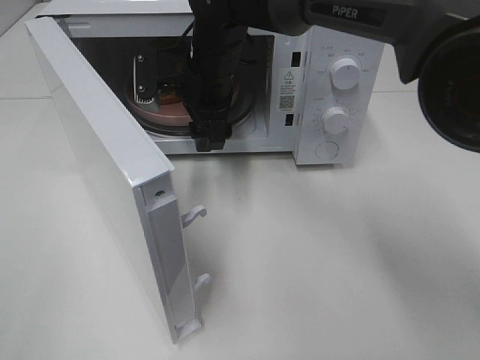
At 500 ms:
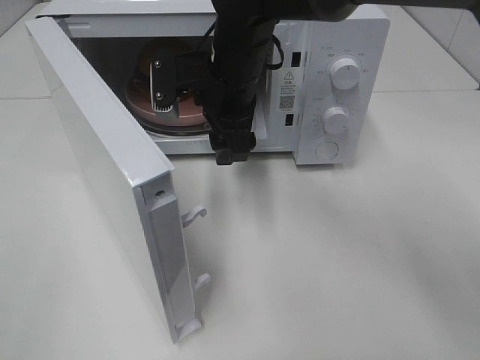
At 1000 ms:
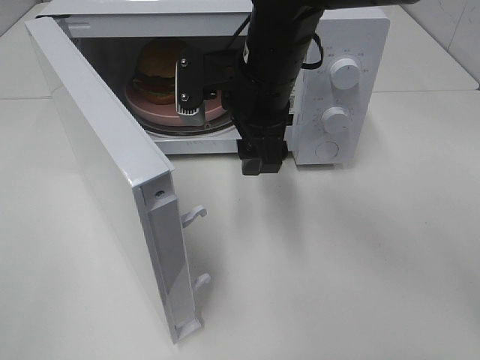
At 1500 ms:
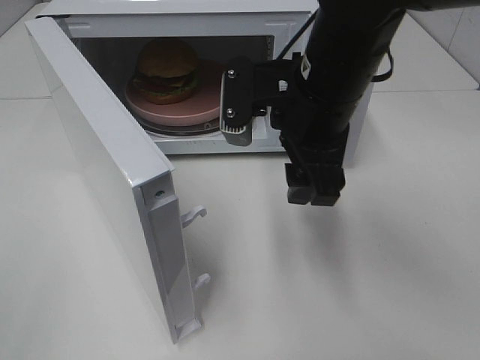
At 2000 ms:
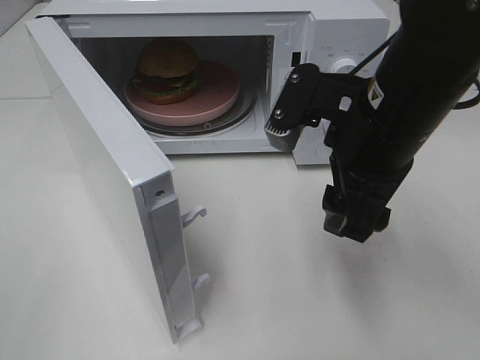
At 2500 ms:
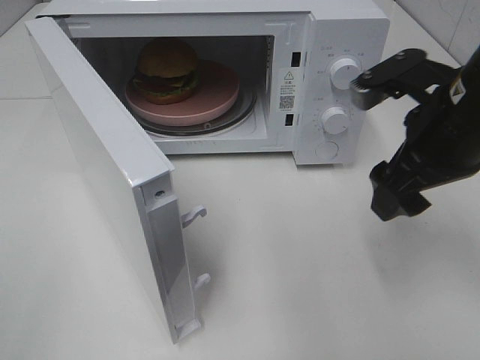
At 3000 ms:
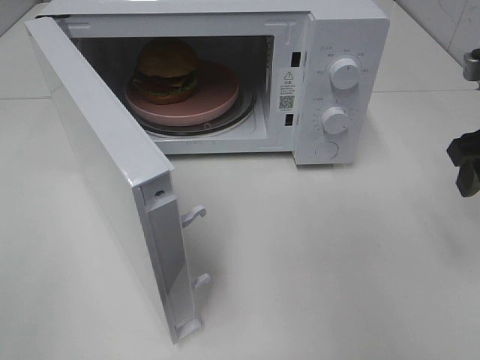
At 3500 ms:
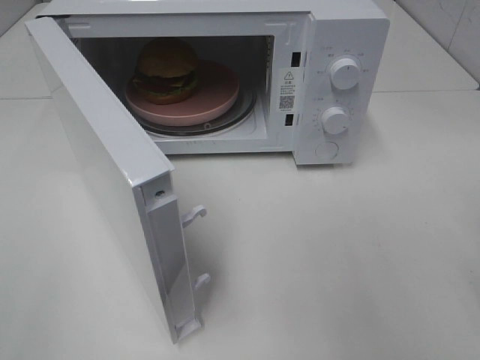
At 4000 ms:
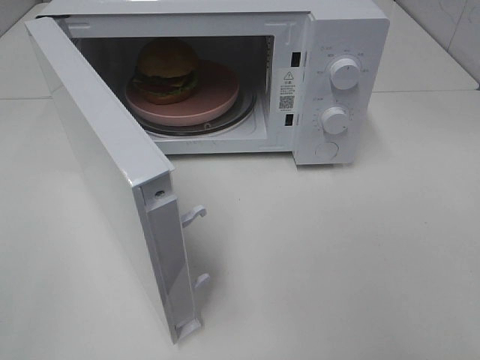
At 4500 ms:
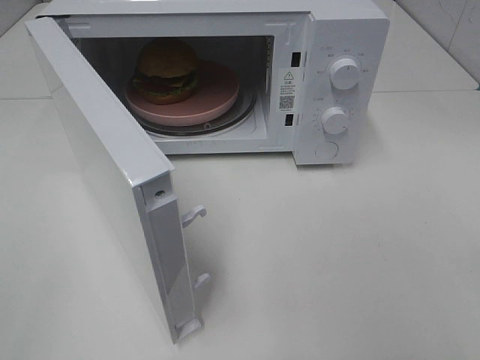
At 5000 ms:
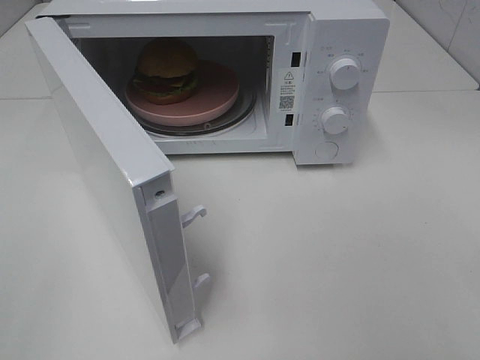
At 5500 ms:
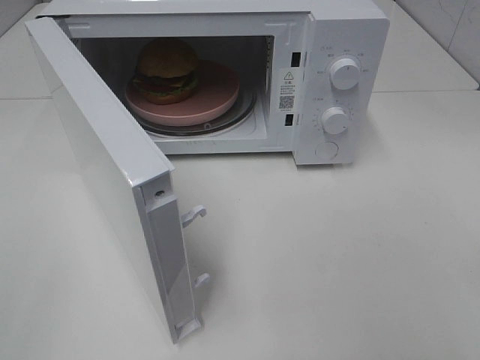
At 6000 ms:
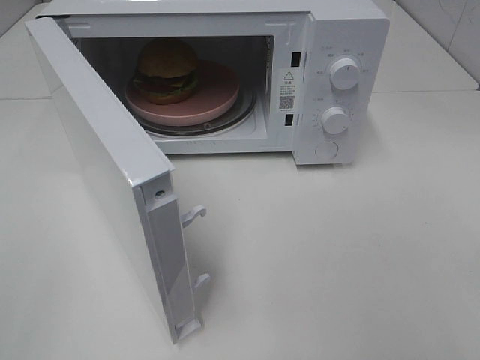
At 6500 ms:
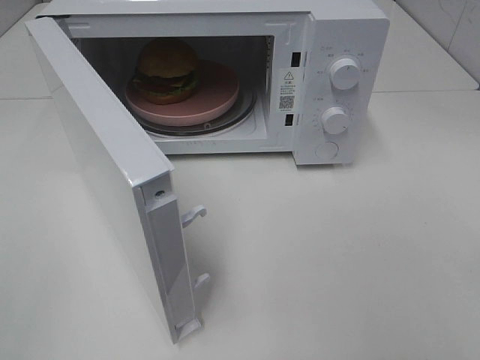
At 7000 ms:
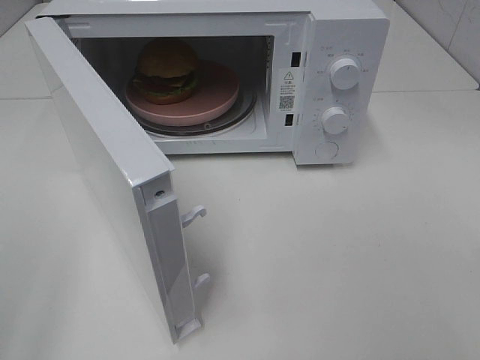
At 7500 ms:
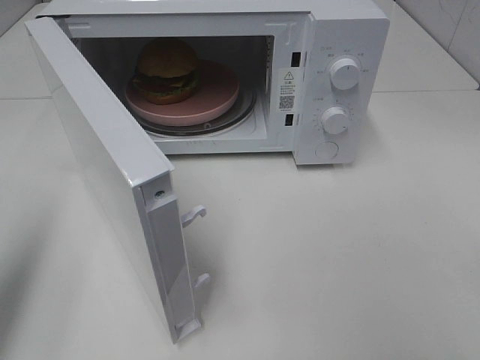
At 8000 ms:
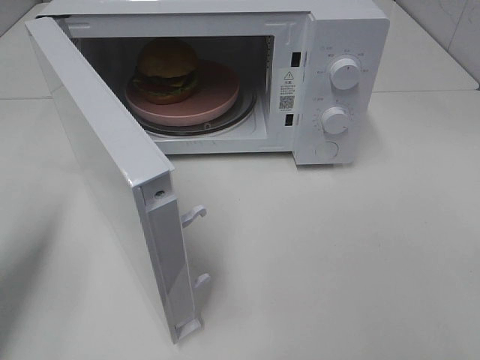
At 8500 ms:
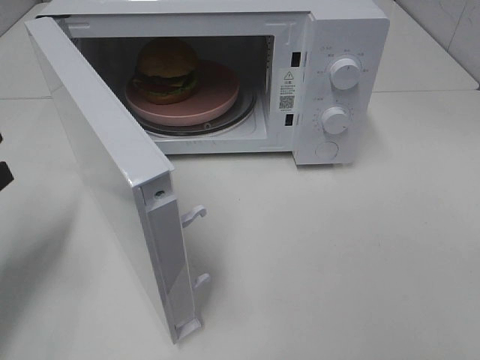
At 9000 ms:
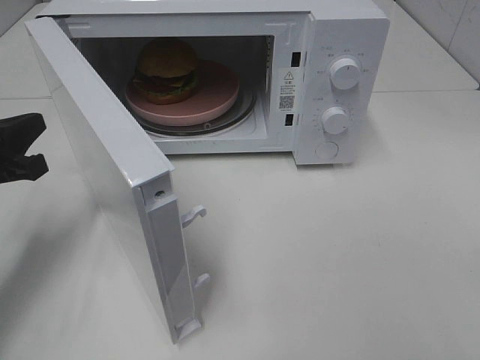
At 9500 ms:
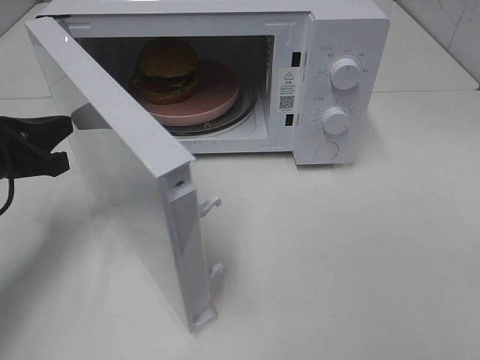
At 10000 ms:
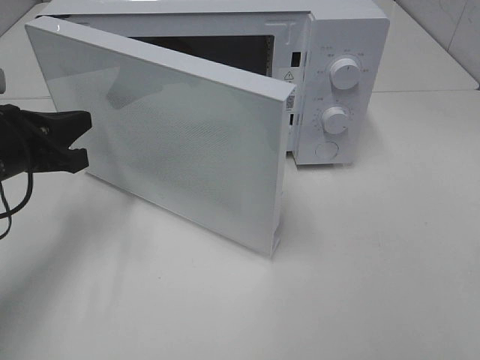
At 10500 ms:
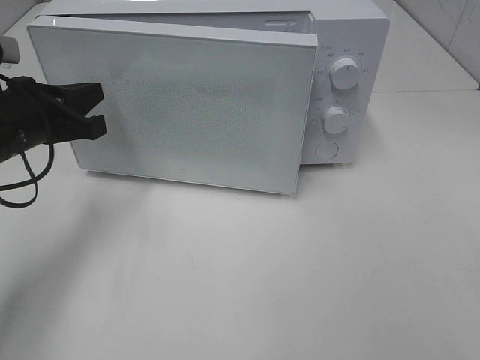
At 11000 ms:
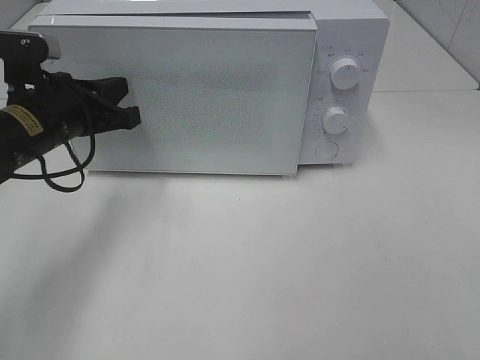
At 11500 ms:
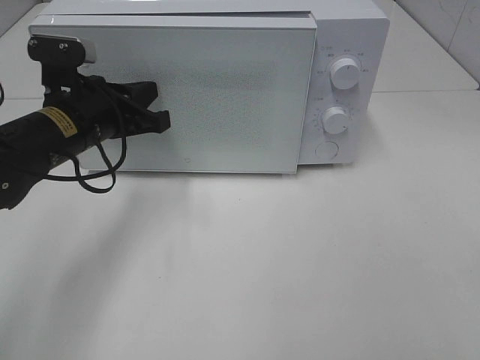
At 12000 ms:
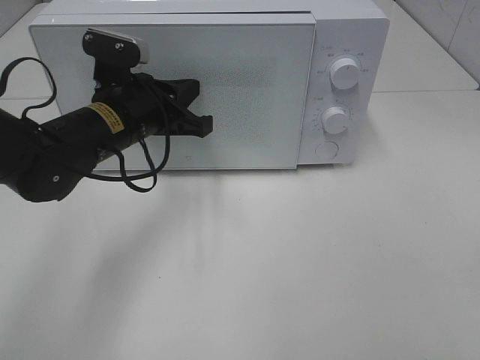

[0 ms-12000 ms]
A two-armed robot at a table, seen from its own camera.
Task of the whole recording: Heat the burger.
0 ms to 2000 ms: The right gripper shifts approximately 25 cm backward and to the right.
2000 ms to 4000 ms: The right gripper moves to the right and backward, about 25 cm.
6000 ms to 8000 ms: The left gripper travels forward by some 20 cm, and closes its fingers.
8000 ms to 10000 ms: The left gripper goes some 15 cm forward, to the right and downward.
10000 ms to 12000 ms: The left gripper heads to the right and forward, covering some 15 cm.

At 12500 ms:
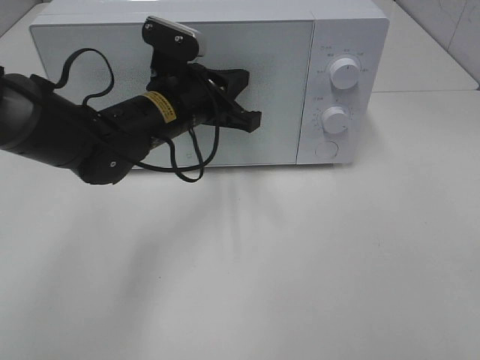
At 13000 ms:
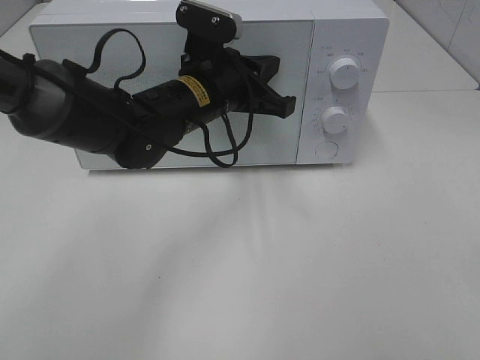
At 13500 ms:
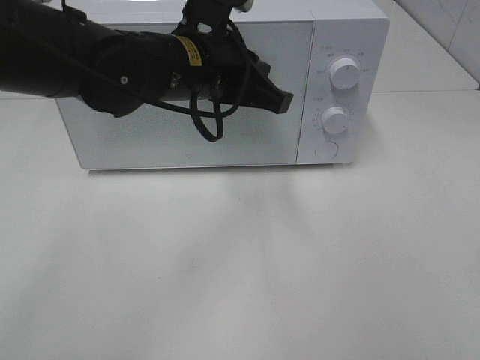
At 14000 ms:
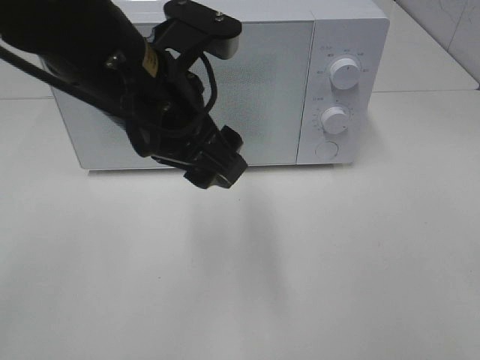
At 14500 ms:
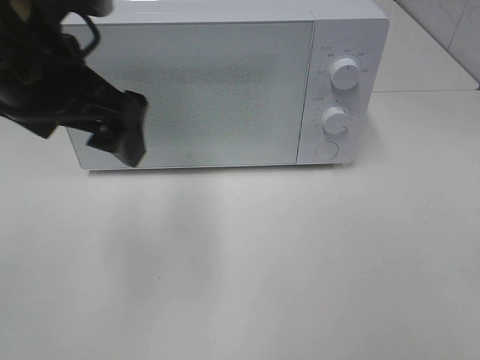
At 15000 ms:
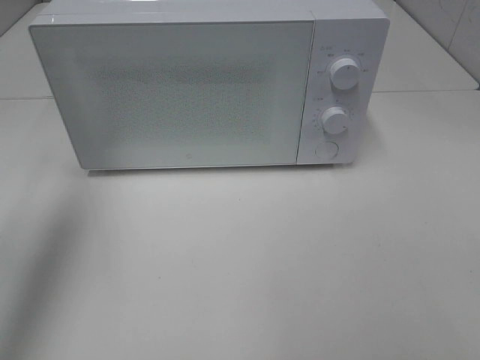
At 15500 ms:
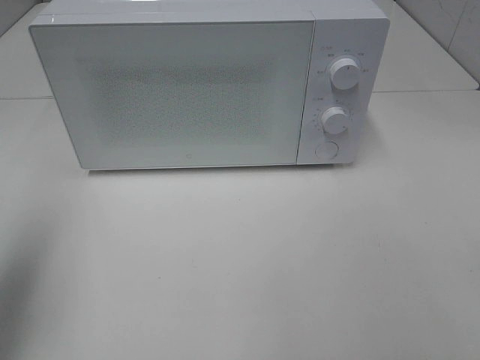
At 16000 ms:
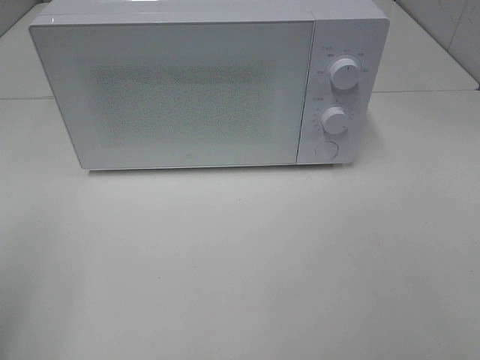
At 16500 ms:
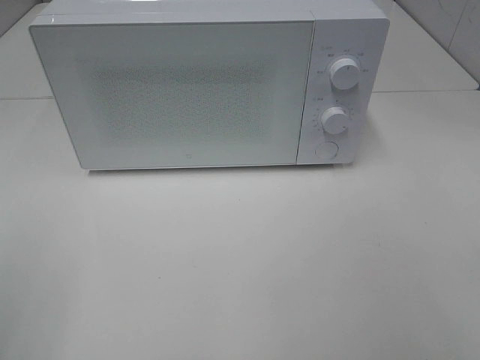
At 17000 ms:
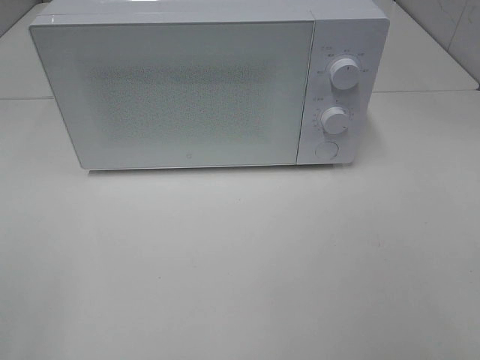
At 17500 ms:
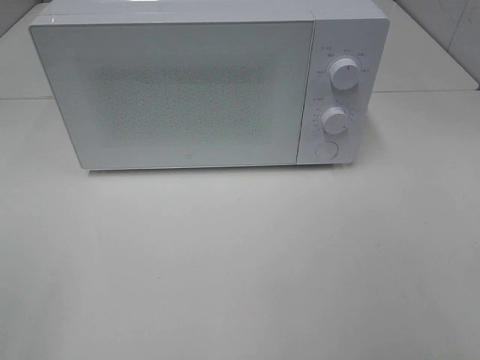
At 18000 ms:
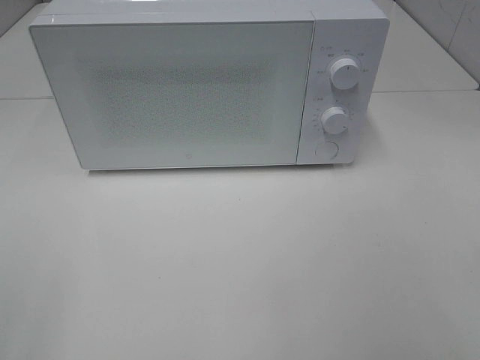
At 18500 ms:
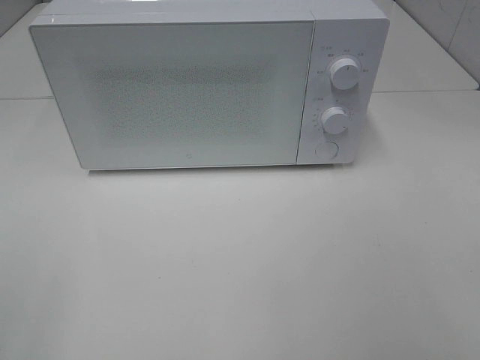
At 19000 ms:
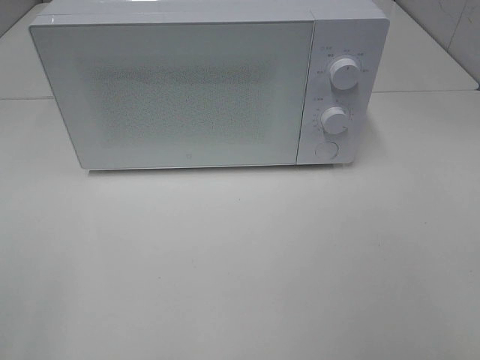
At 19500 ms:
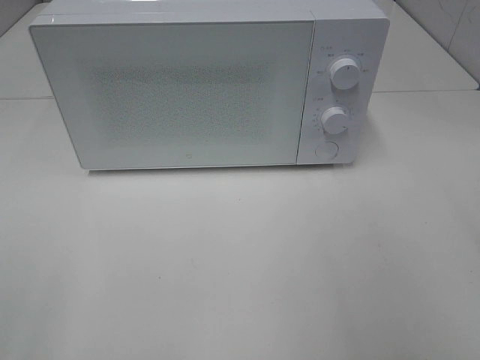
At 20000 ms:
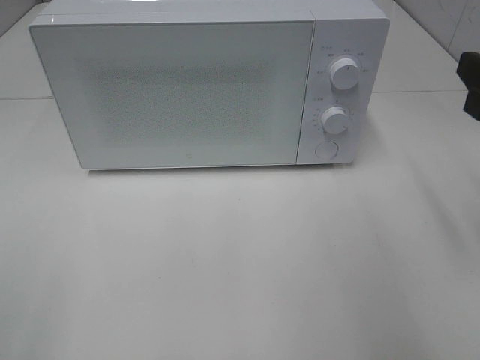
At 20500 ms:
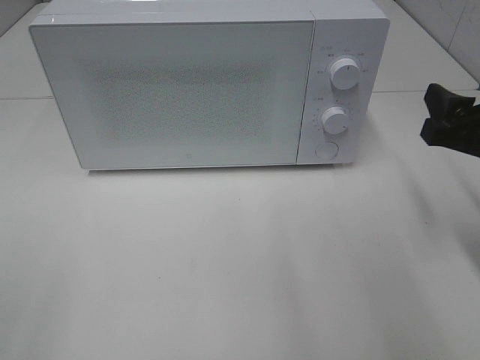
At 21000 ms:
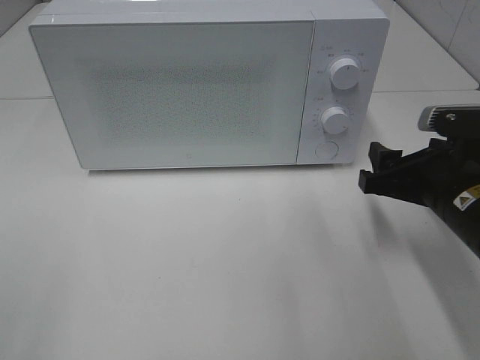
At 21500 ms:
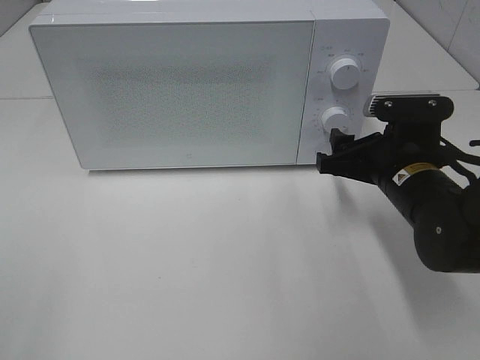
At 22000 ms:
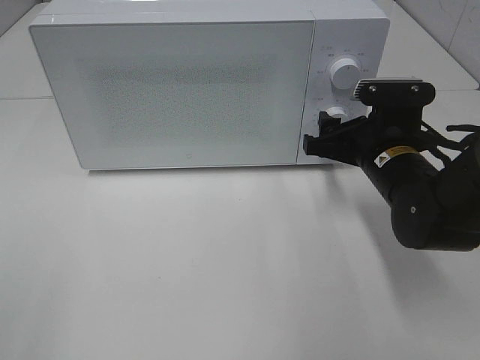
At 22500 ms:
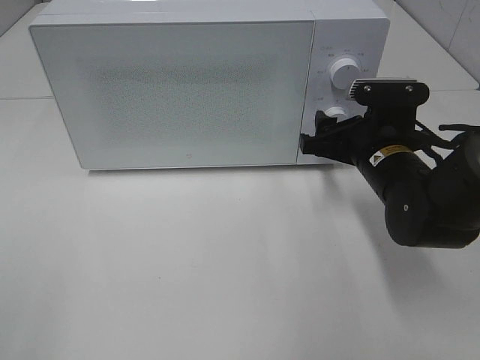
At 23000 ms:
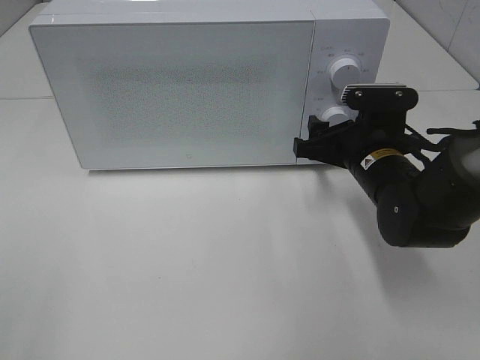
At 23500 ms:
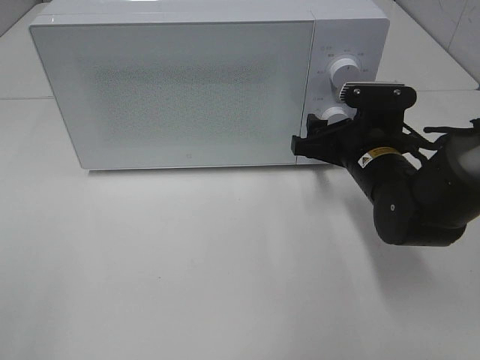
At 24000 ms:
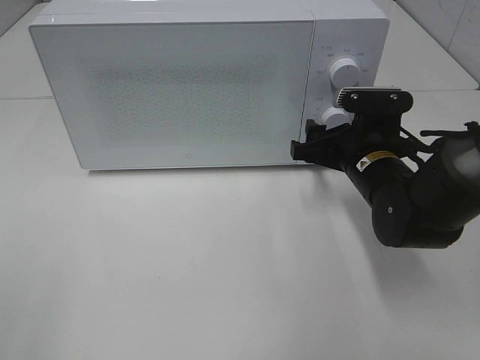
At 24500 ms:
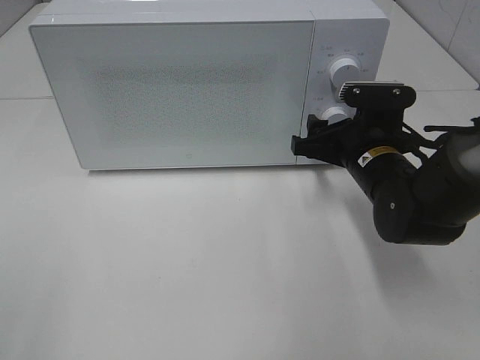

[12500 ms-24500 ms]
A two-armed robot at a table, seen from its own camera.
Task of the whole recording: Heat the burger.
12500 ms to 14500 ms: The left gripper shifts approximately 20 cm upward, backward and to the left, and opens its fingers.
14500 ms to 16500 ms: The left gripper goes roughly 25 cm backward and to the left.
18500 ms to 20500 ms: The right gripper shifts some 25 cm forward and downward.
20500 ms to 22500 ms: The right gripper goes some 15 cm to the left, forward and downward.
22500 ms to 24500 ms: There are only small adjustments of the grippers.

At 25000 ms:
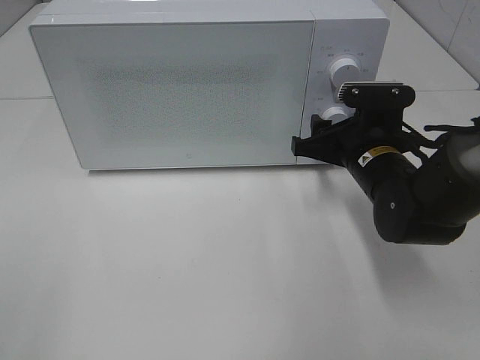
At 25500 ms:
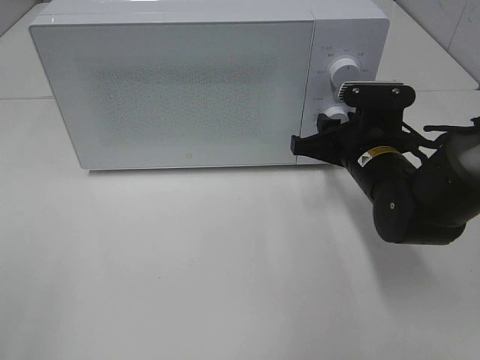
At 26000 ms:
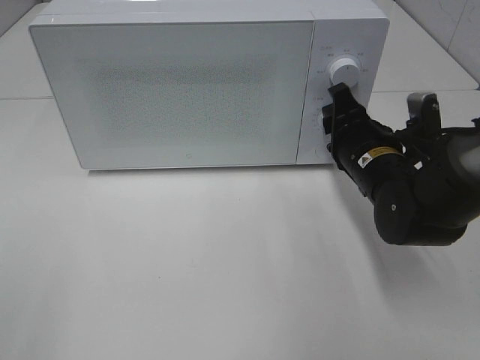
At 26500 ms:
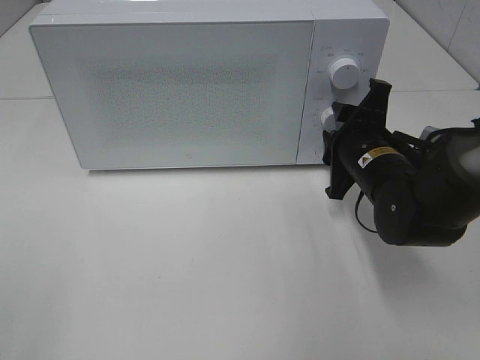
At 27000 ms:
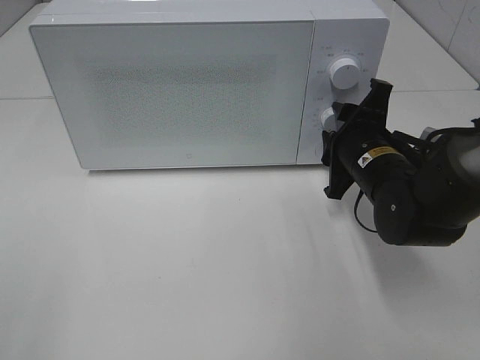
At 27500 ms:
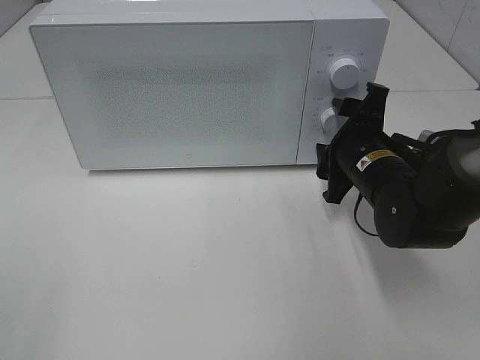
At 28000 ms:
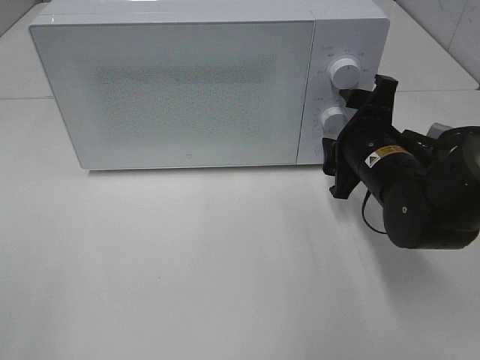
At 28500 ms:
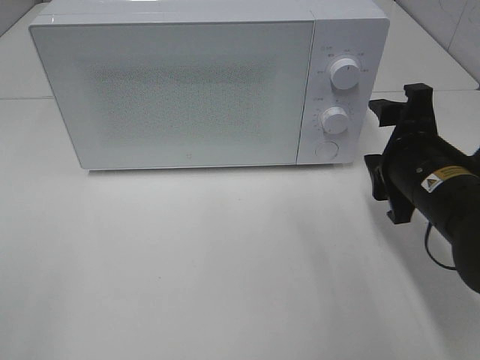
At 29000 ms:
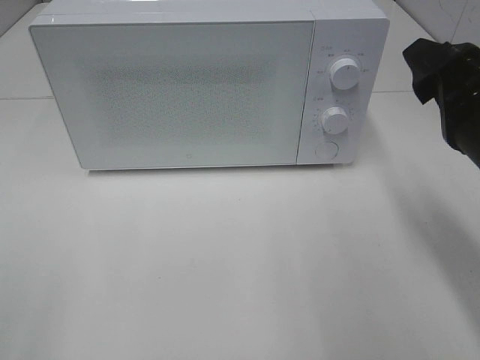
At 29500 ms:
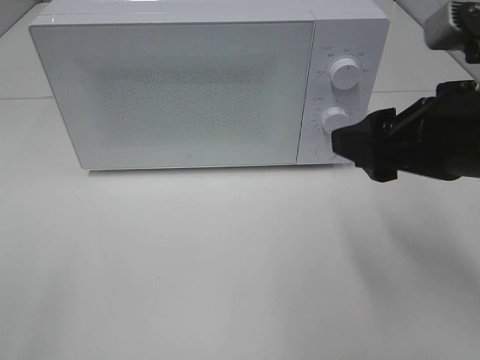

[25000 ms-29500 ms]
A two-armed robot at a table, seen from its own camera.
Task of the whole recording: Heat the burger.
Step, 25000 ms to 27000 ms: Right hand: twist timer button.
27000 ms to 29500 ms: The right gripper is displaced upward and backward by roughly 20 cm.
